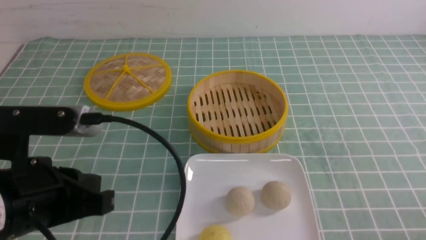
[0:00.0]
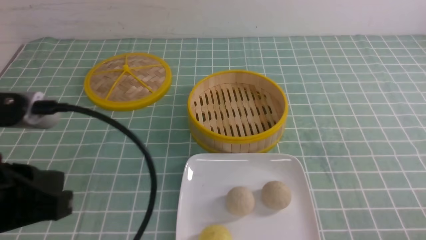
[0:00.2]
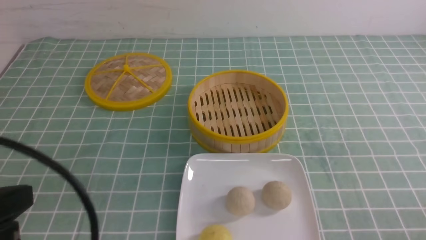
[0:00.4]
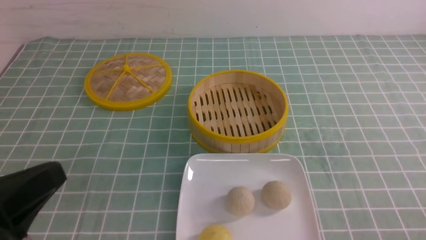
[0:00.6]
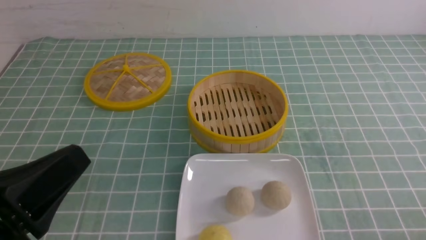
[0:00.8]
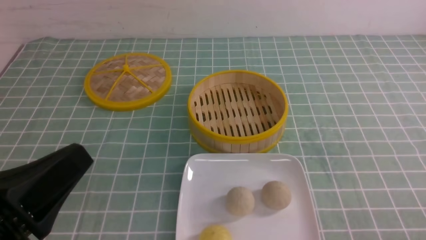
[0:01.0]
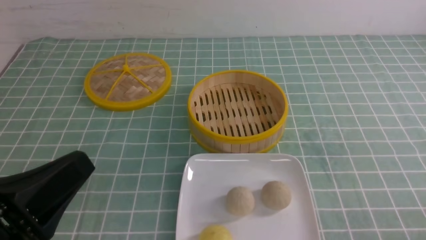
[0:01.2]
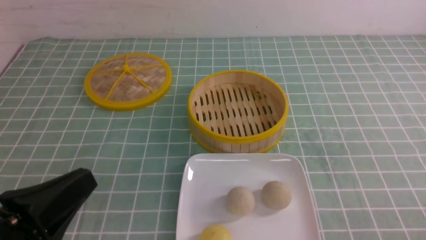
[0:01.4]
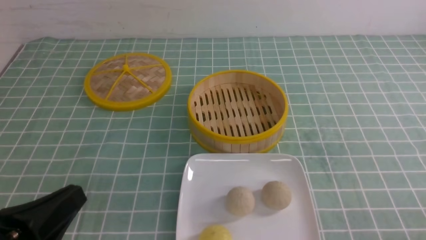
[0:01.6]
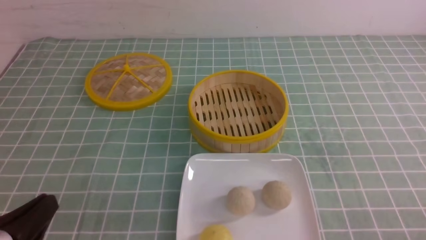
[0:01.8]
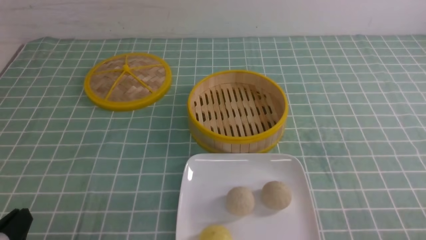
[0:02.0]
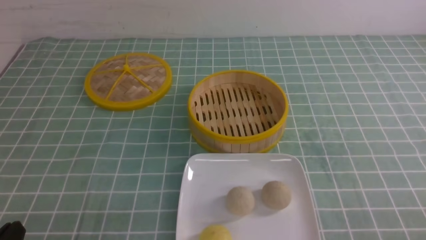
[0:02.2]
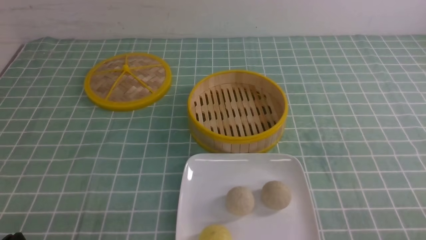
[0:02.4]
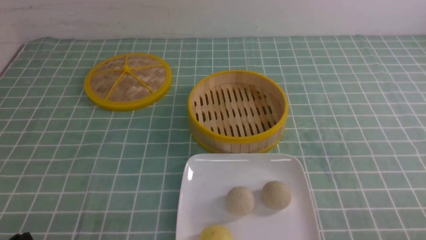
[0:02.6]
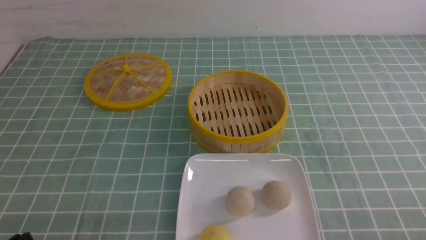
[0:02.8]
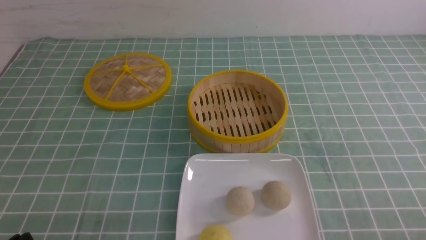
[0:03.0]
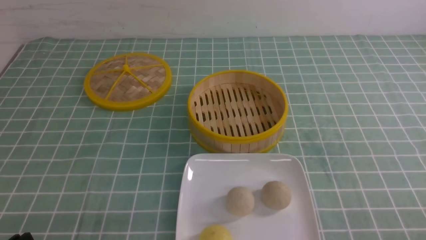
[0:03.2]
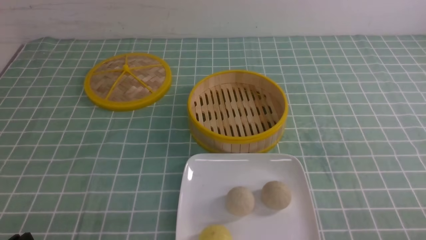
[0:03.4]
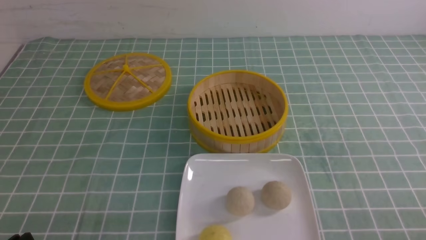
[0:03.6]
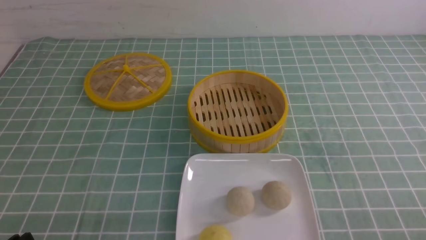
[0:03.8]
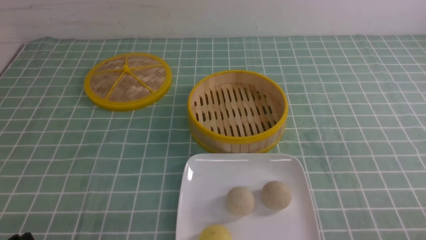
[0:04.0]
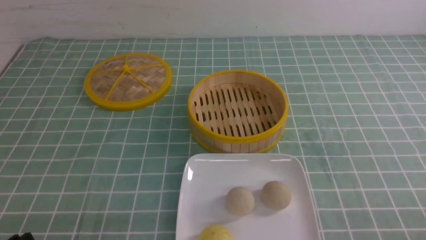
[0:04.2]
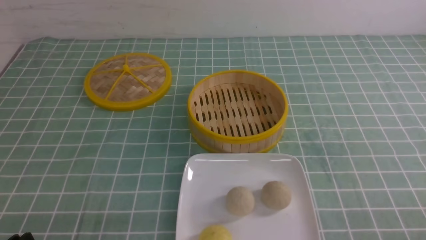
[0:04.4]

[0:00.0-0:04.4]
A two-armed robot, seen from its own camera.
0:00.0 to 0:01.4: The left gripper goes some 5 cm backward.
0:01.4 to 0:03.0: The left gripper shifts about 10 cm downward.
0:03.0 to 0:04.4: Both grippers stay about where they are.

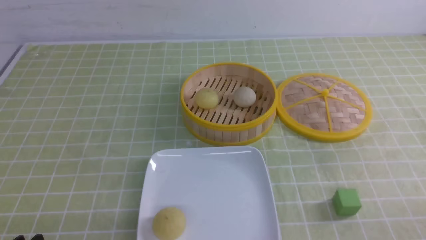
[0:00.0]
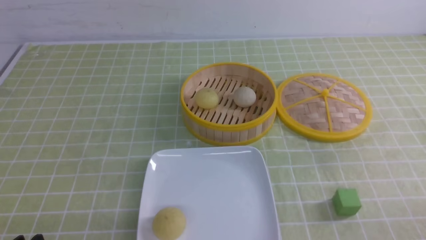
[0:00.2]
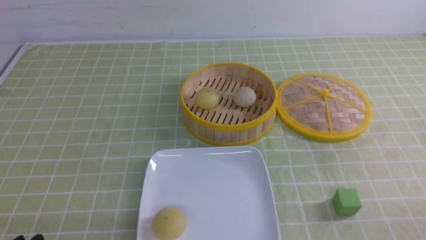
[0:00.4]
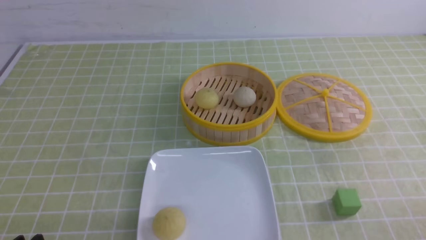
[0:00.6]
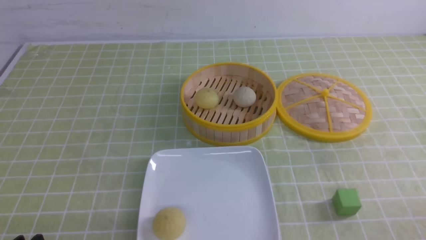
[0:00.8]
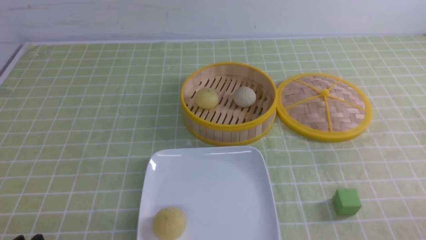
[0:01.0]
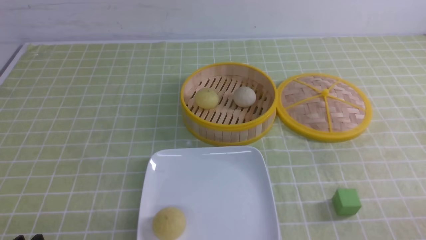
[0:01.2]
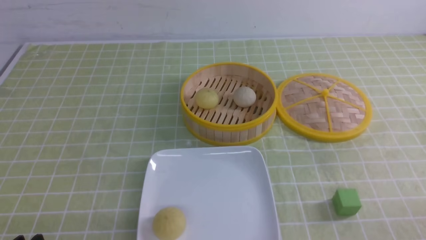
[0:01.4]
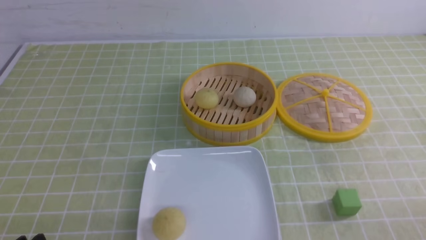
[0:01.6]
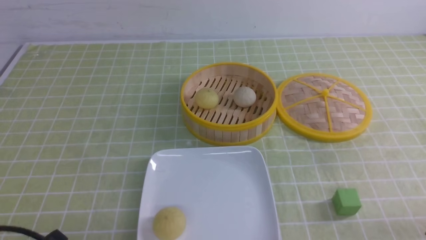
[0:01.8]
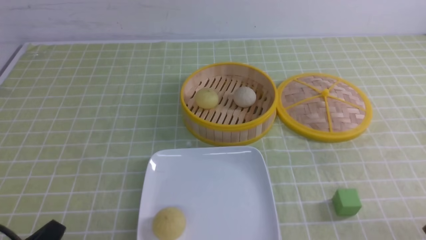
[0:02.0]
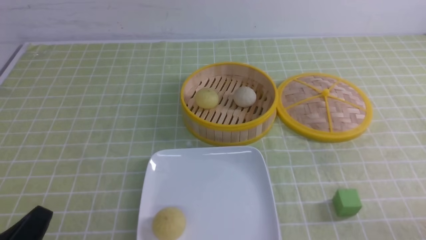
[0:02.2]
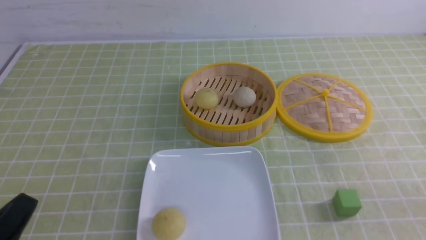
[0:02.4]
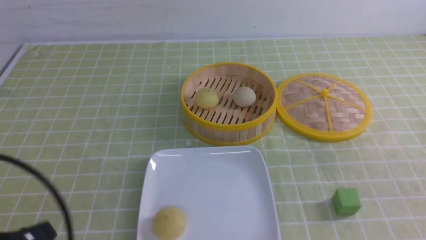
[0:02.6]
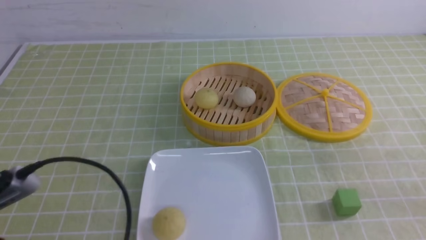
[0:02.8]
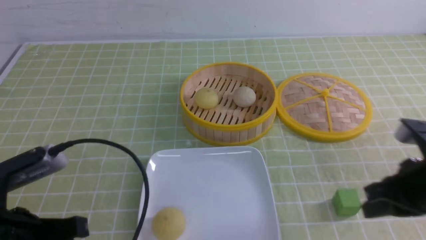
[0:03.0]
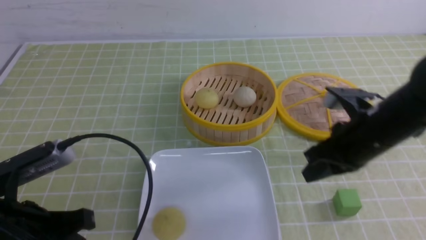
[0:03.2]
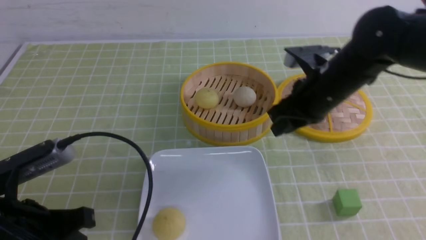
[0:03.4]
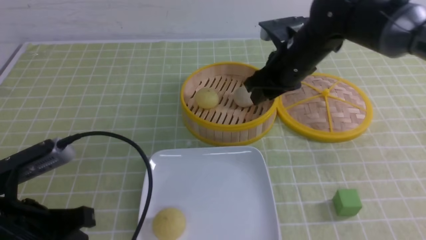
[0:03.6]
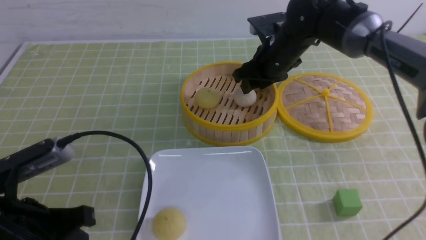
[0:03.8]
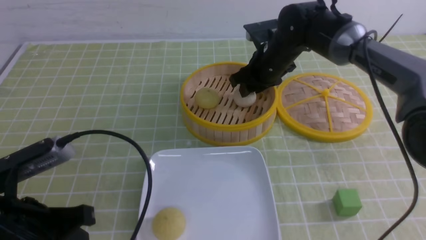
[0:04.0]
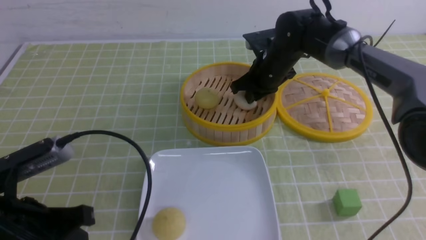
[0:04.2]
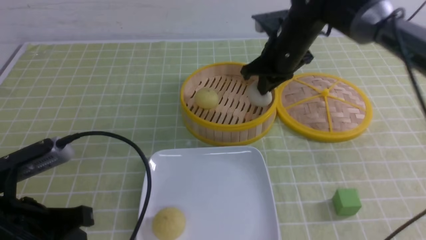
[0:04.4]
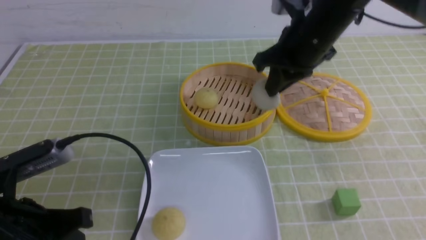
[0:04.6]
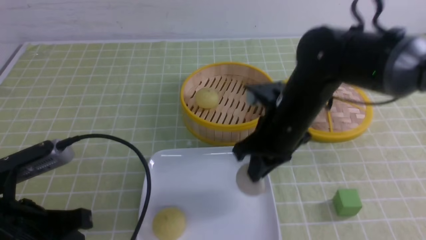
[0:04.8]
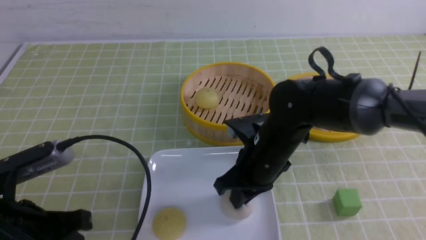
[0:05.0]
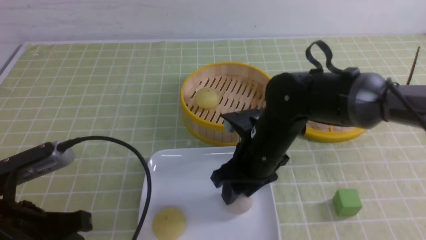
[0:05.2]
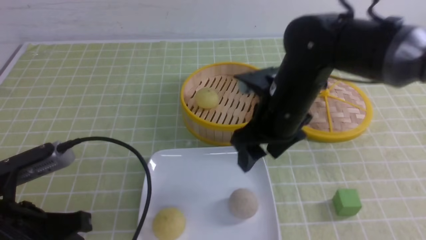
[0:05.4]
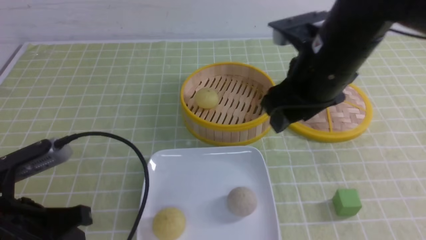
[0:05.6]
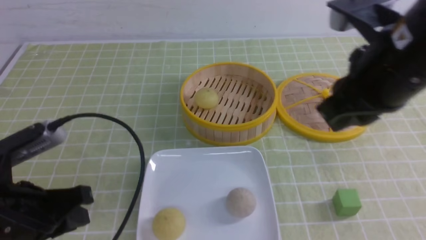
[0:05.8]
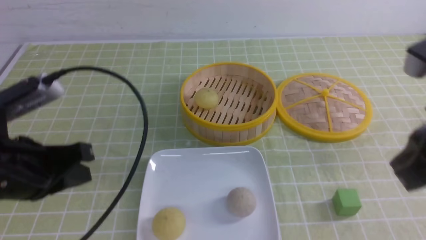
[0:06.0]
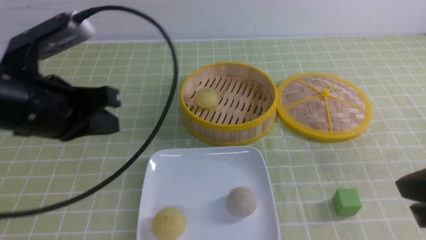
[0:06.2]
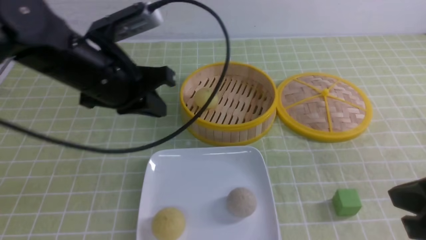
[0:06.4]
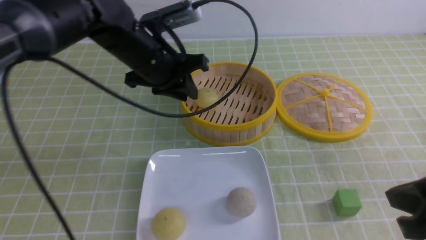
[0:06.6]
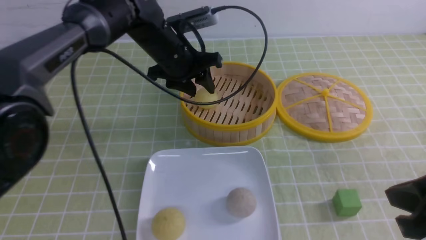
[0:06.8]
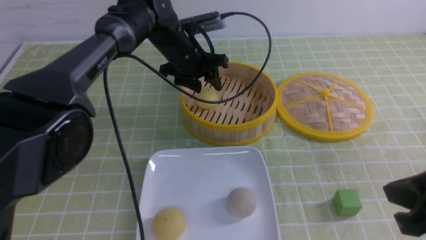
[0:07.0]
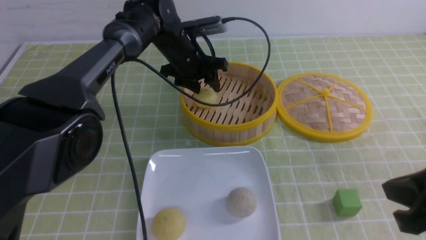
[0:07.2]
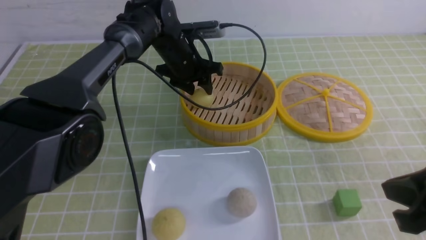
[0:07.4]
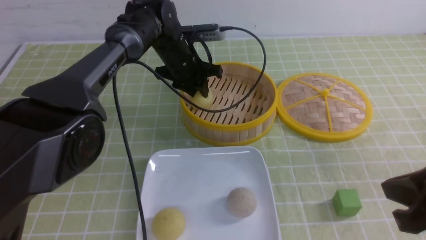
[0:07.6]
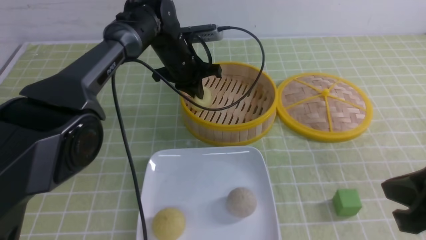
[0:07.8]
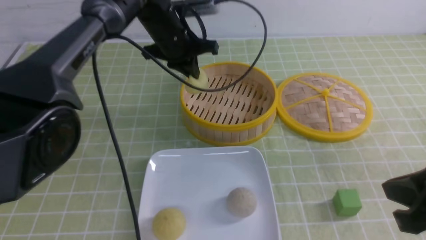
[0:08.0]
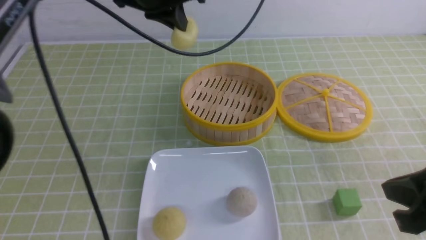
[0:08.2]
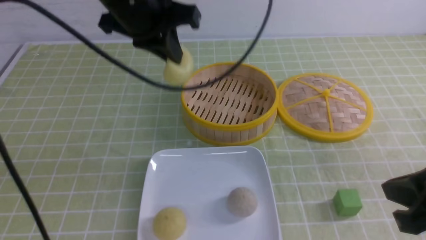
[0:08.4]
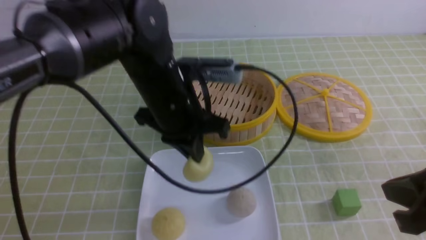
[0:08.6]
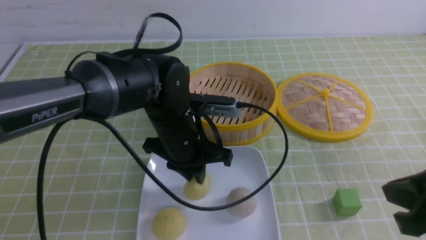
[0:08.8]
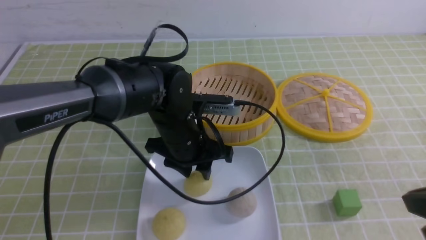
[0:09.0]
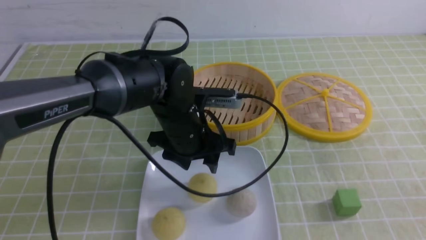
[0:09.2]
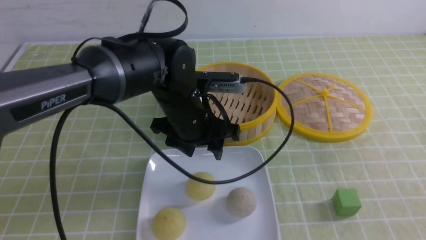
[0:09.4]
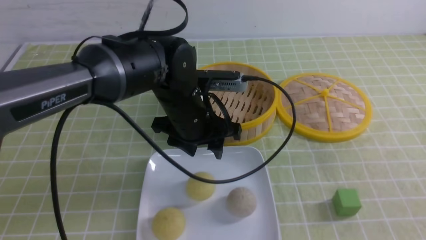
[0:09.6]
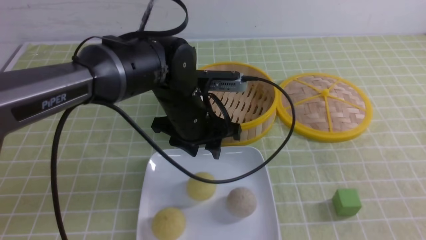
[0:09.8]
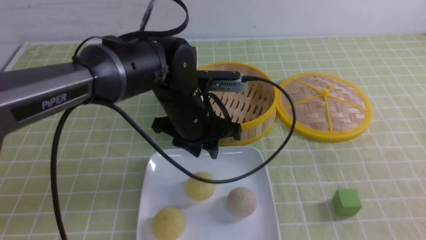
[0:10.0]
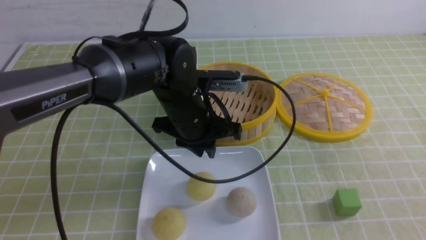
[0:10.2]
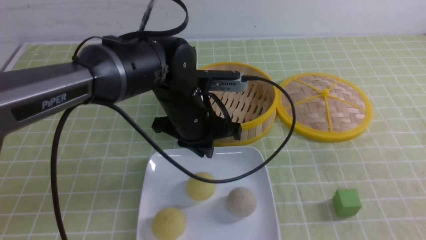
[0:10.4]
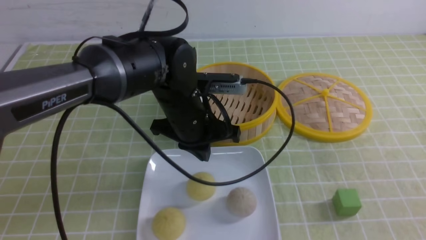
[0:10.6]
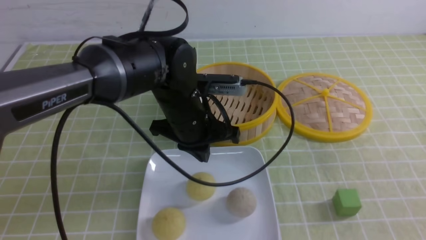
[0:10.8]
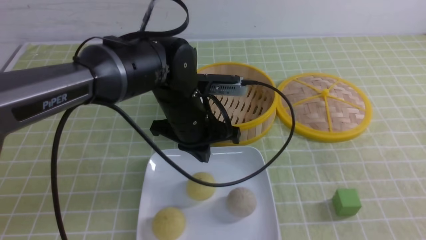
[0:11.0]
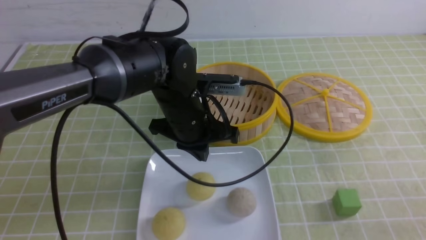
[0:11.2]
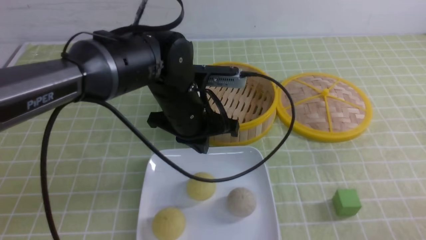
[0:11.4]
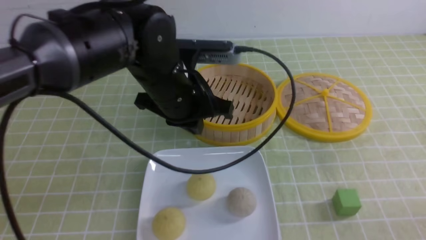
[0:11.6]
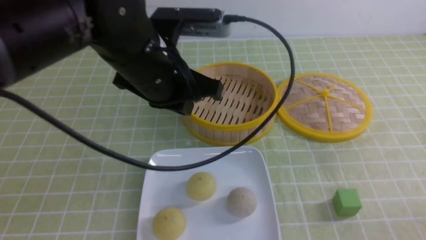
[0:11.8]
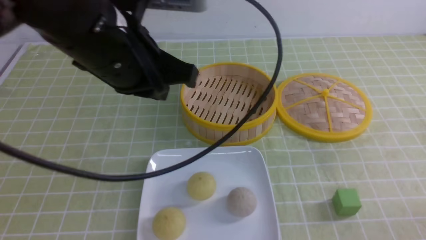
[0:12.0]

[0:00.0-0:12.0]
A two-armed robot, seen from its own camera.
Step, 0:00.0 to 0:04.2: use the right arm to grab the steamed stuffed bun that is closest to it.
Step, 0:04.4 to 0:05.0: use the right arm to put the steamed stuffed bun into the plate.
Step, 0:05.2 to 0:07.6: use the left arm to grab the steamed stuffed bun that is closest to it.
Step, 0:08.0 to 0:08.8: use the left arm to put the steamed stuffed bun into the plate.
0:01.6 to 0:03.0: The left gripper is displaced upward and forward by roughly 10 cm, and closes its fingers, while the right gripper heads forward and upward, covering about 20 cm, and closes its fingers.
0:03.0 to 0:04.4: The right gripper heads forward and to the left, covering roughly 25 cm, and opens, then closes once more.
0:04.4 to 0:06.0: The right gripper is displaced backward by roughly 25 cm, and opens and closes again. Meanwhile the left gripper is displaced upward by approximately 5 cm.
0:06.0 to 0:07.6: The right gripper goes roughly 5 cm downward. The left gripper heads forward and to the right, covering approximately 35 cm, and opens, then closes again.
0:07.6 to 0:09.0: The left gripper is displaced backward by roughly 20 cm, and closes, then reopens.
0:09.0 to 0:10.4: The left gripper closes. The right gripper goes about 5 cm backward.
0:10.4 to 0:12.0: The left gripper travels upward, backward and to the left by about 20 cm. Meanwhile the right gripper travels downward by approximately 15 cm.
